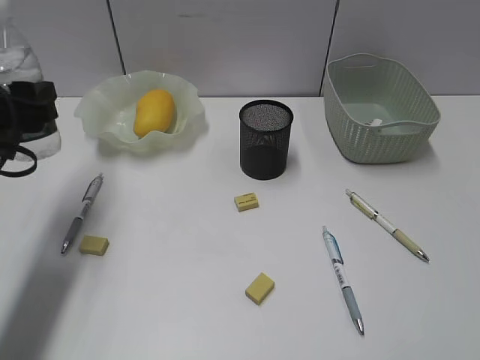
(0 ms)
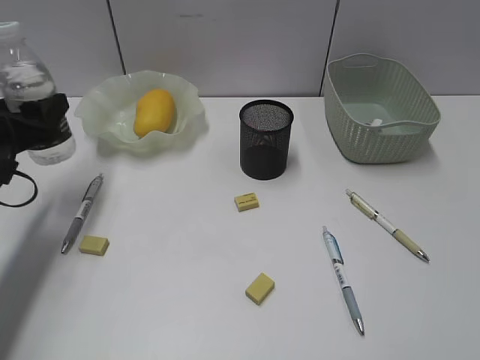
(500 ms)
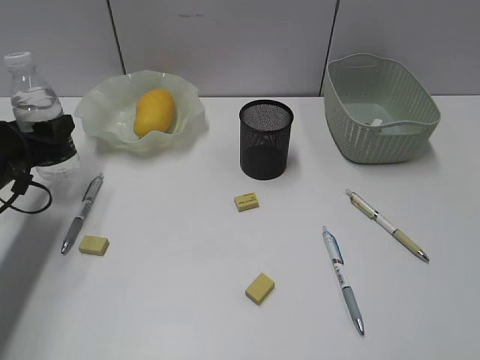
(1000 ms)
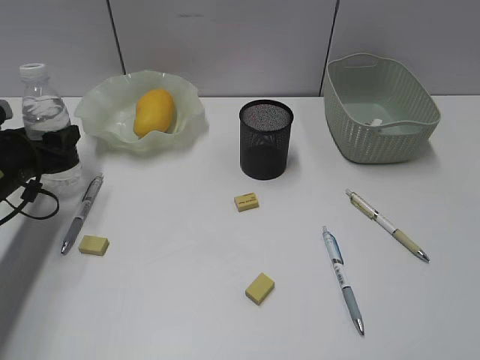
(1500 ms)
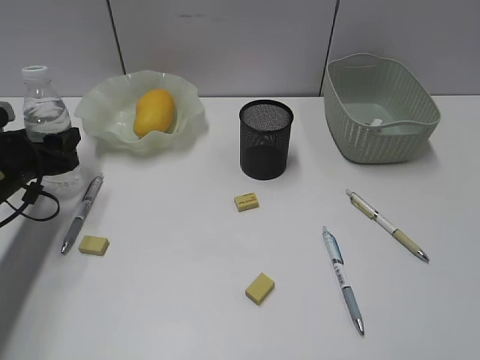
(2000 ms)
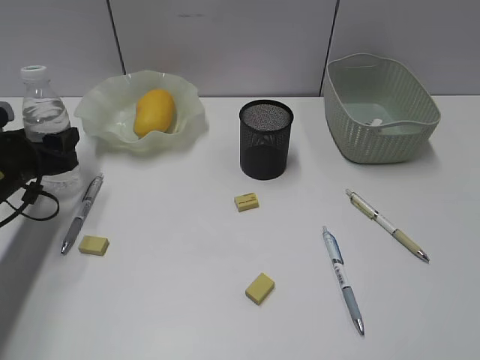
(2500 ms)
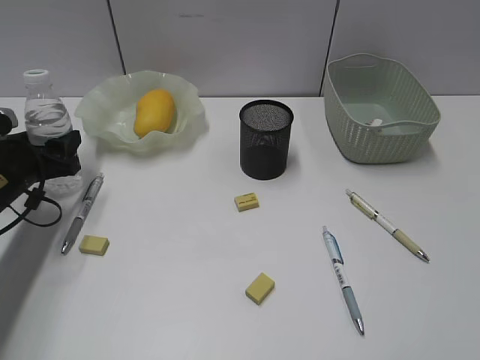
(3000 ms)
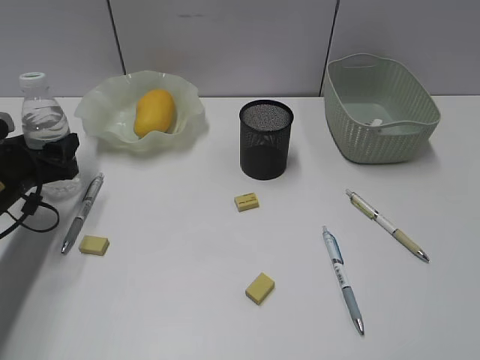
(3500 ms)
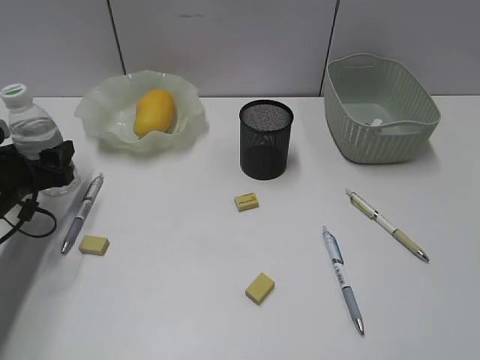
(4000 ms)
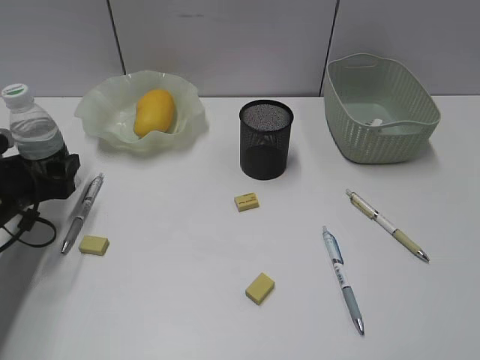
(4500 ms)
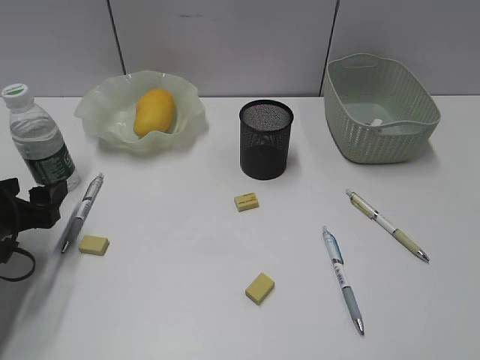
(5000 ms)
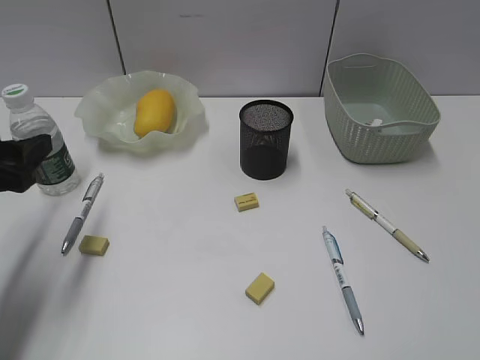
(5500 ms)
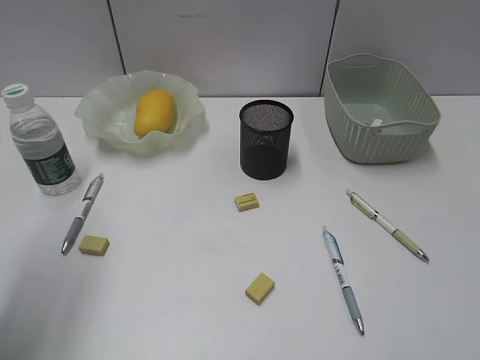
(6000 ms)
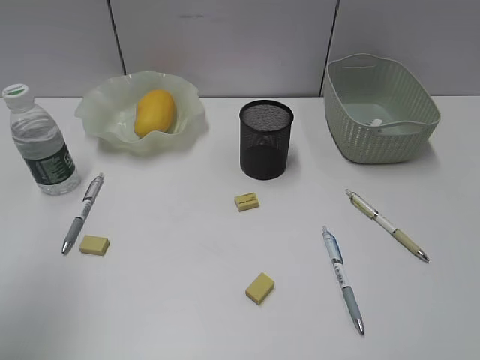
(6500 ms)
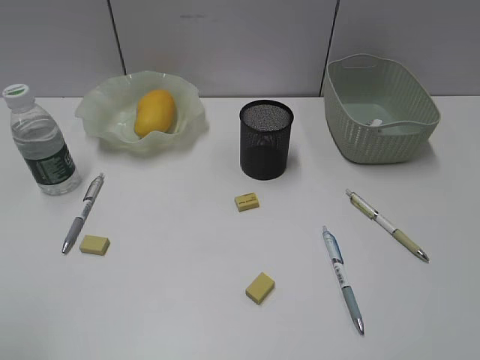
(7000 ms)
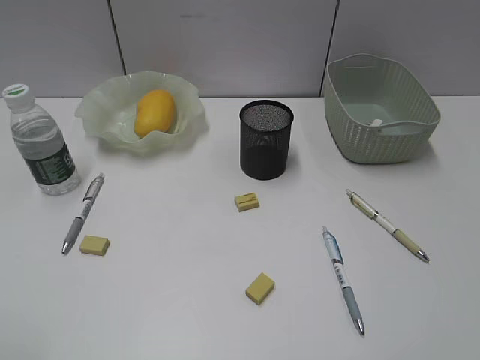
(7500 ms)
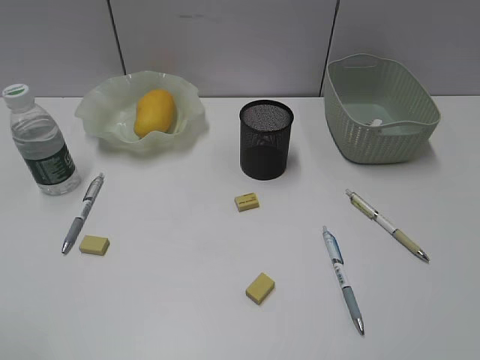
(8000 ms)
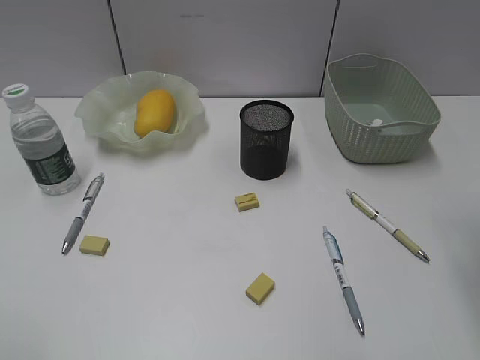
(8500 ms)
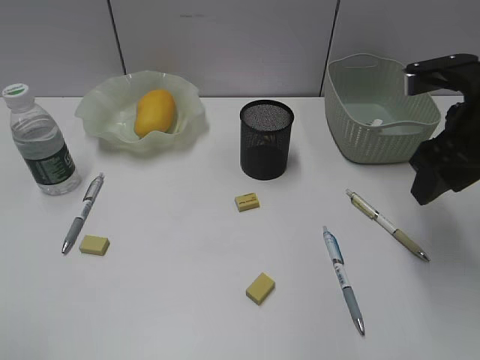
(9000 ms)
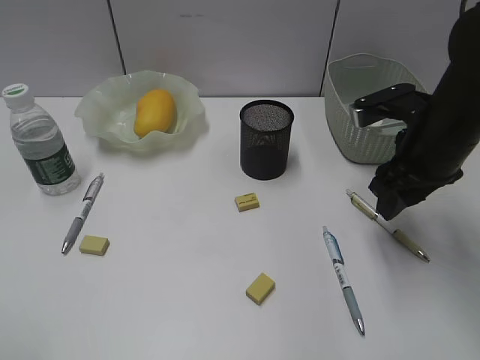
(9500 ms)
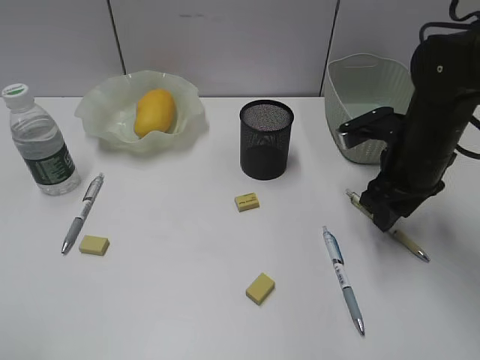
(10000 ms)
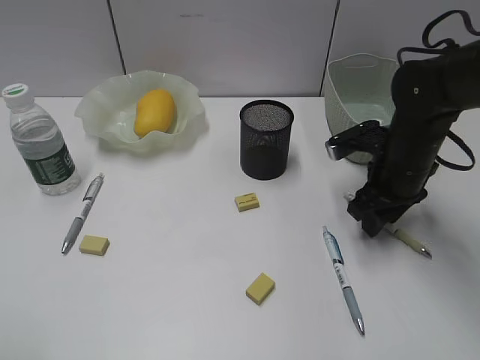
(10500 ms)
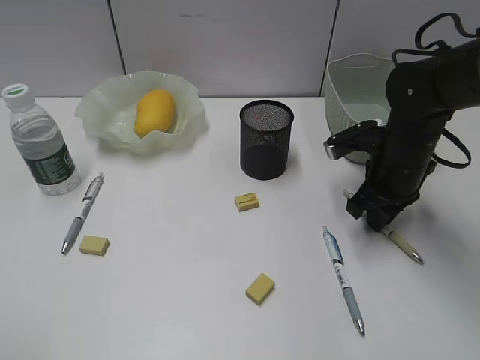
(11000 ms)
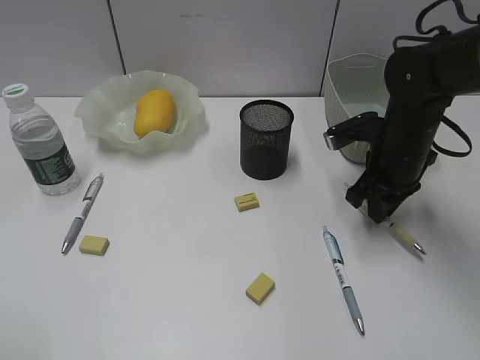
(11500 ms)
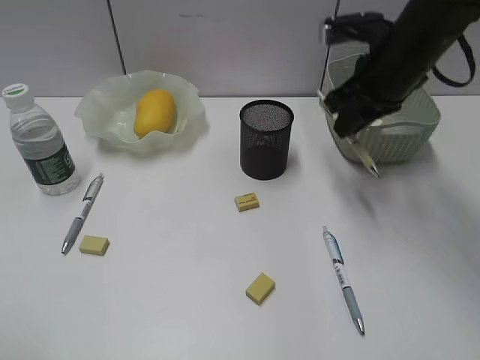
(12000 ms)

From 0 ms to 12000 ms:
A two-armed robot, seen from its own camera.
Step, from 0 ms to 4500 ms: Stand the bottle with left gripper.
Step, from 5000 ms to 11000 ms: Grasp the yellow pen with right gripper.
From 0 ms to 2000 ms: The left gripper is displaced downward and forward by some 10 cm.
From 2000 ms to 4000 ms: The grippers move only a little.
From 4000 ms to 6000 ms: The left gripper heads upward and backward, covering some 25 cm.
From 6000 ms to 8000 ms: The left gripper is displaced backward by some 15 cm.
From 8000 ms to 10000 ms: The right gripper shifts roughly 25 cm forward and downward, and closes.
From 10000 ms to 12000 ms: The right gripper shifts some 10 cm upward, and closes.

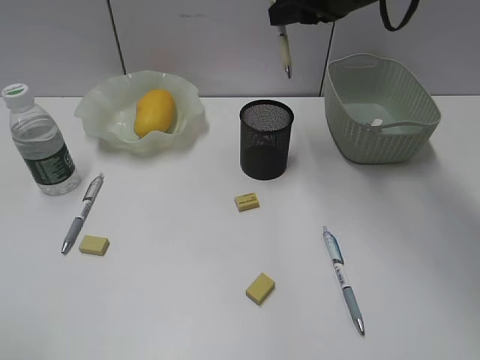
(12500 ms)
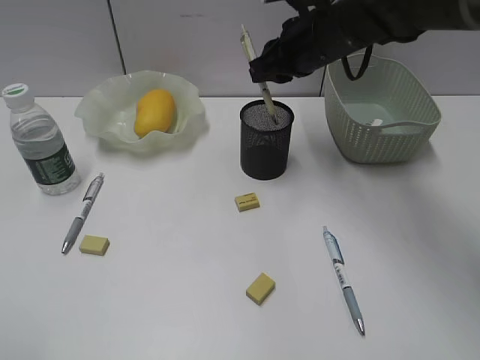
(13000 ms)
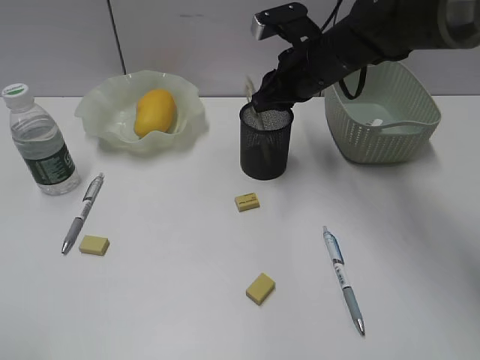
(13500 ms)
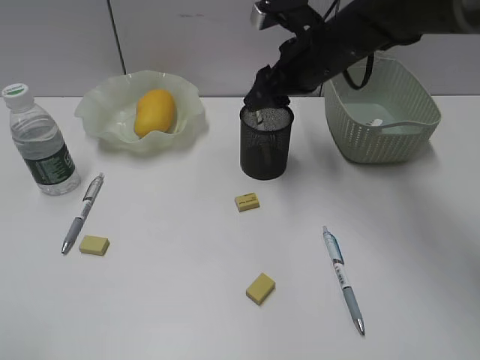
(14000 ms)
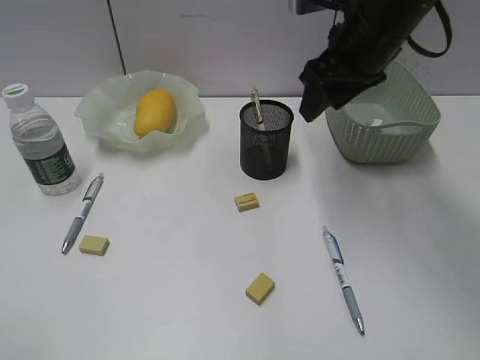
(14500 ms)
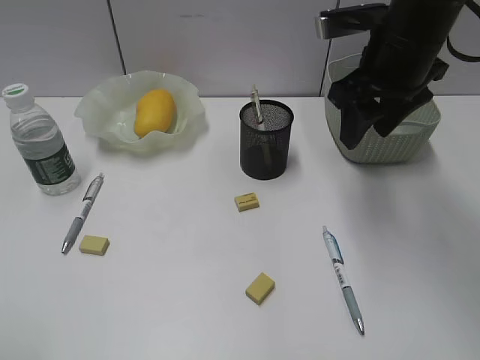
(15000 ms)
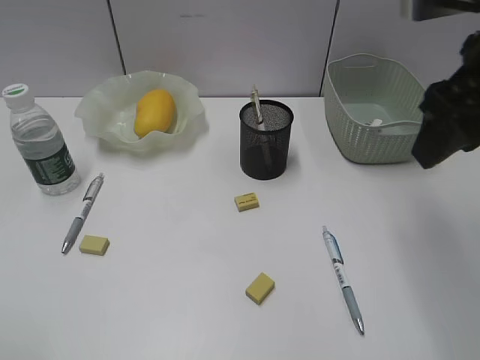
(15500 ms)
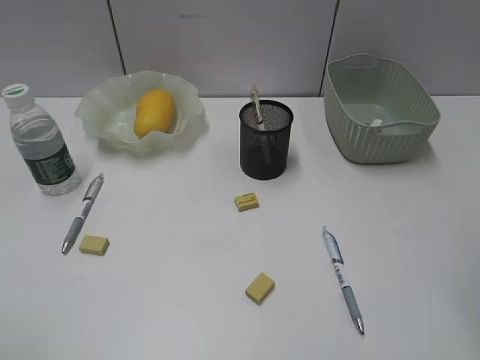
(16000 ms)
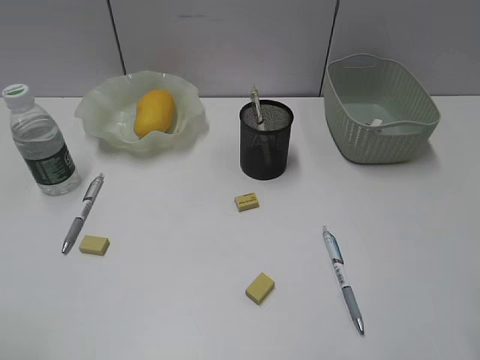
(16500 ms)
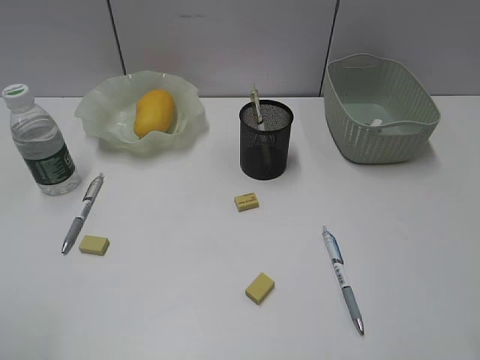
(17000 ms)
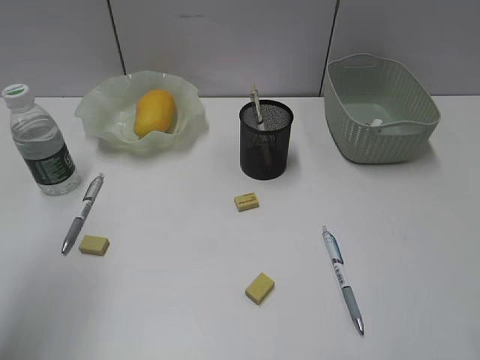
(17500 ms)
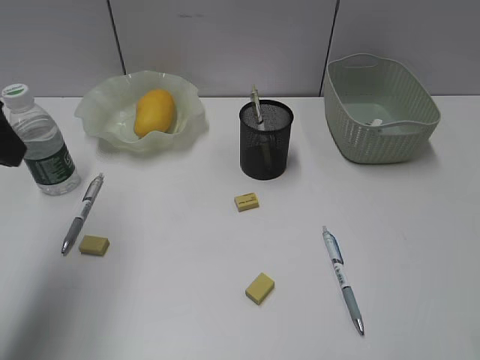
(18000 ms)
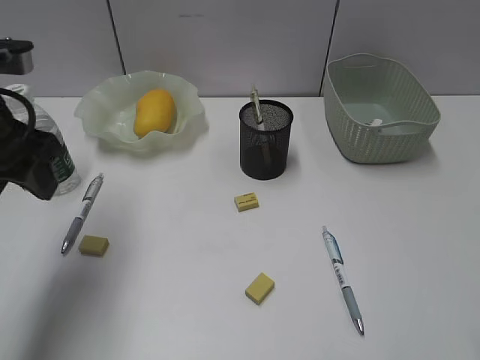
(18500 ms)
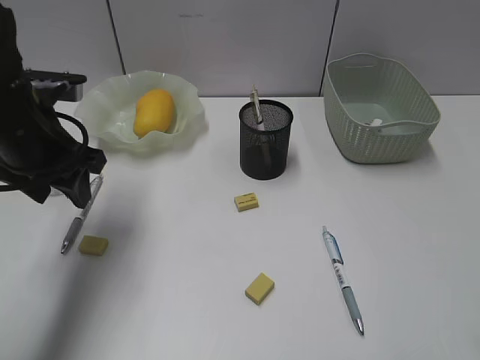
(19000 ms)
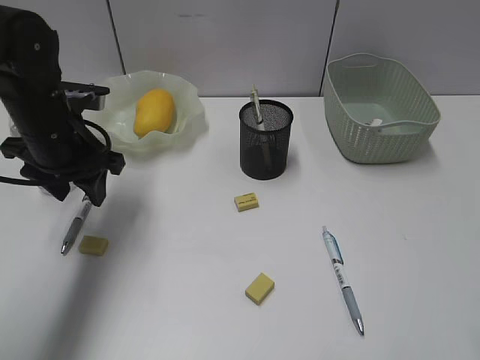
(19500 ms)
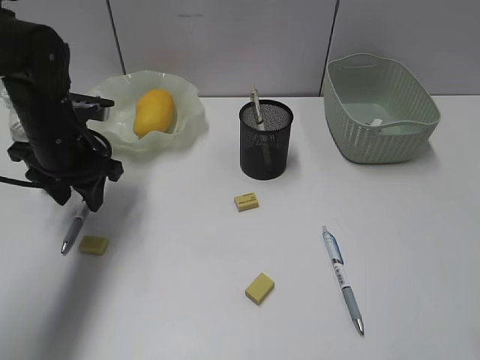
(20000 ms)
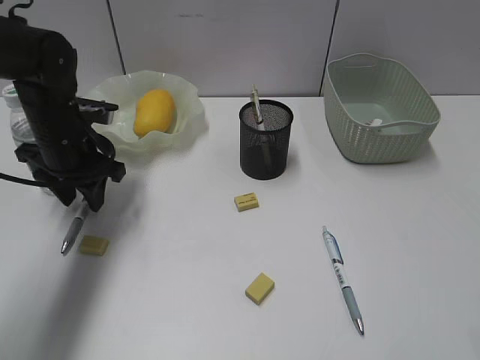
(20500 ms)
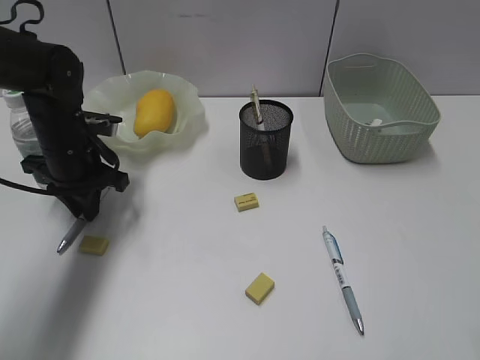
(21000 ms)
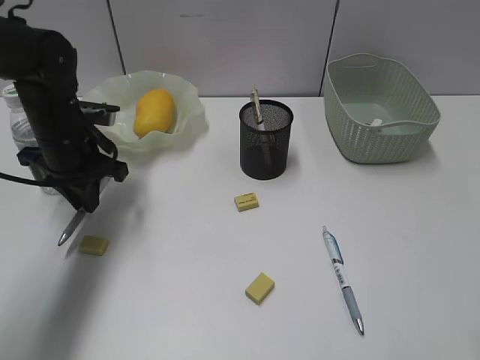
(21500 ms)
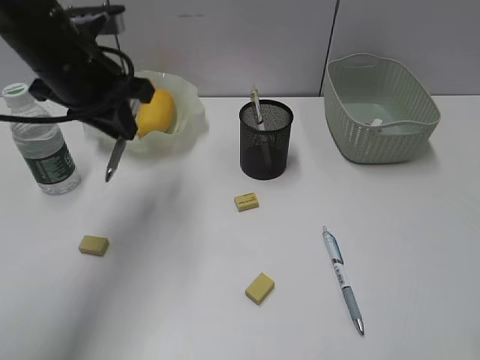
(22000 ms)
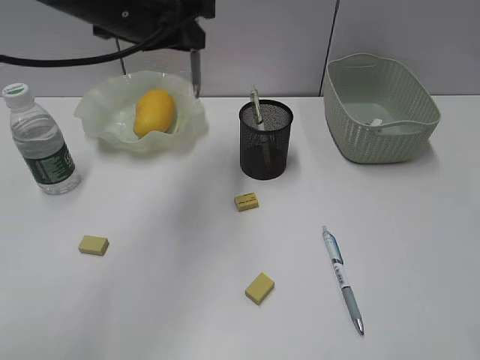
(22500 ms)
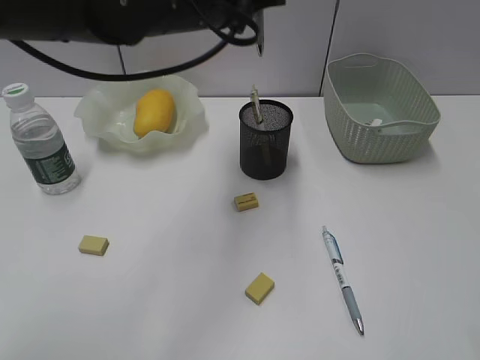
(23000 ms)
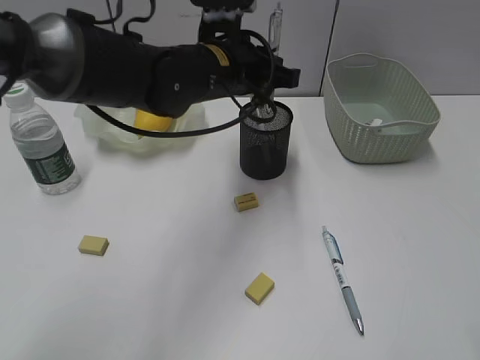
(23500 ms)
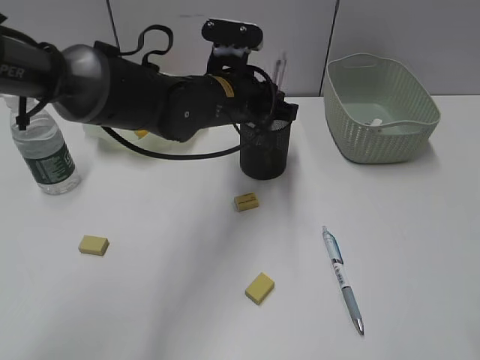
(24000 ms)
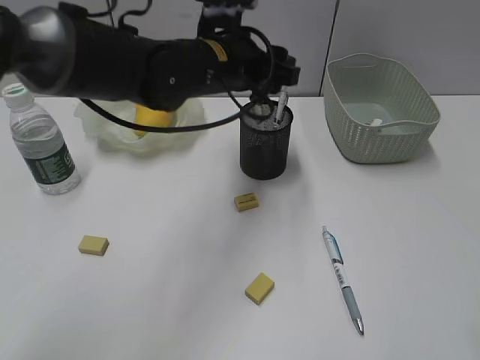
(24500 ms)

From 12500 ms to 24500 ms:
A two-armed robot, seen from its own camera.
Step, from 14000 ms to 21000 ms: Grasp the gray pen with left gripper.
Step, from 21500 ms to 24000 ms: Place the gray pen in pen holder with left gripper.
From 12500 ms to 14500 ms: The right gripper reaches about 10 cm downward, then returns, and opens its fingers.
From 14500 ms to 16500 ms: The right gripper moves backward and to the right, about 30 cm.
From 16500 ms to 18500 ms: The left gripper heads forward, covering approximately 25 cm.
From 18500 ms to 20500 ms: The left gripper heads downward and forward, covering roughly 15 cm.
From 20500 ms to 22500 ms: The left gripper shifts approximately 20 cm upward and to the right, and closes its fingers.
From 22500 ms to 24500 ms: The left gripper is displaced to the right and downward by roughly 10 cm, and opens its fingers.

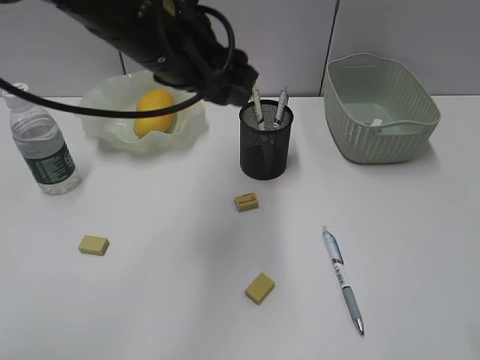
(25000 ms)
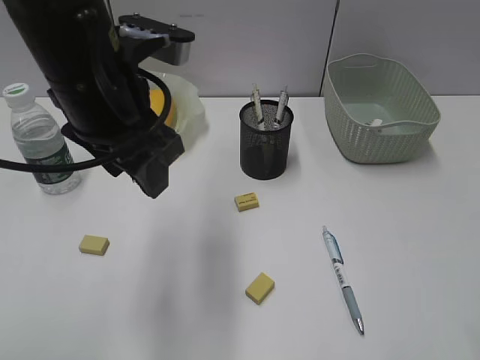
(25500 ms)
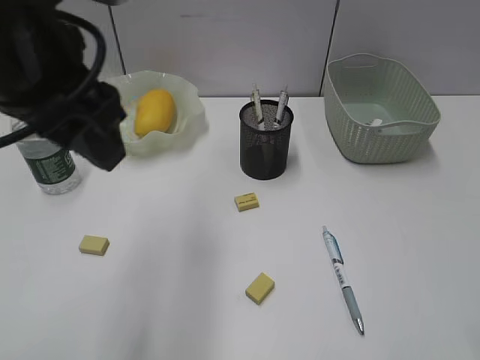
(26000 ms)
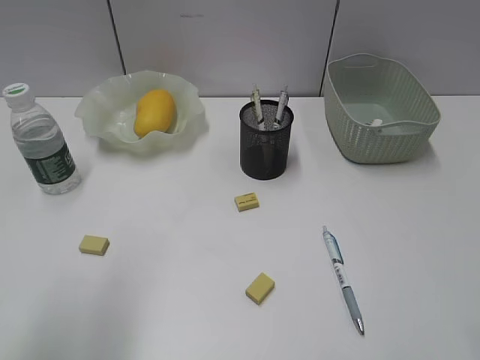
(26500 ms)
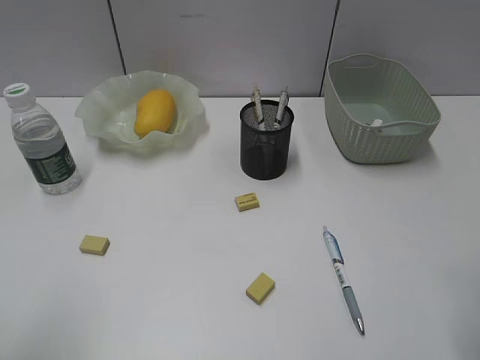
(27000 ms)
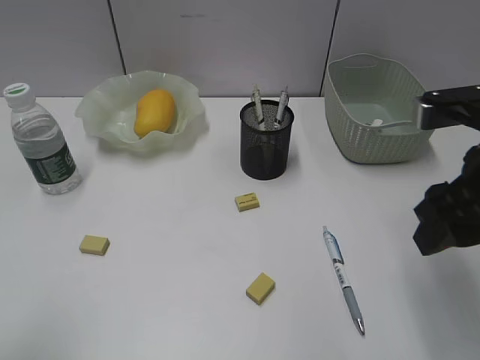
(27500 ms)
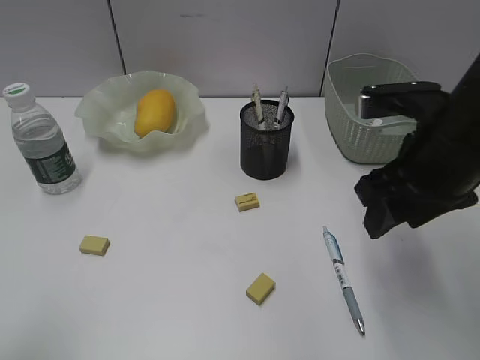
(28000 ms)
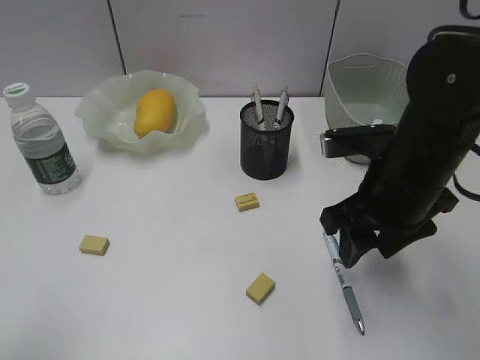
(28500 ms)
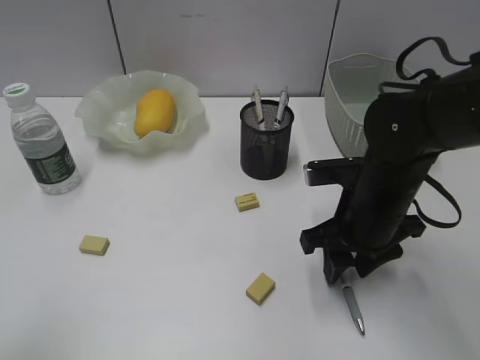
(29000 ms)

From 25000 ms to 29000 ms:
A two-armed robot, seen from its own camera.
From 25000 ms to 27000 ms: The right gripper shifts by roughly 5 cm. Meanwhile the left gripper heads backward and to the left, covering about 30 cm.
From 27000 ms to 29000 ms: The right gripper travels forward, downward and to the left by roughly 25 cm.
